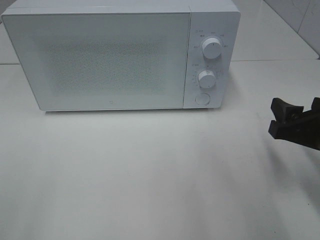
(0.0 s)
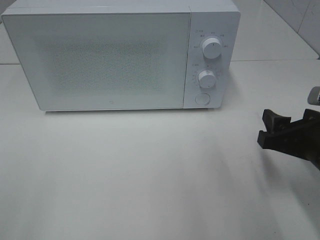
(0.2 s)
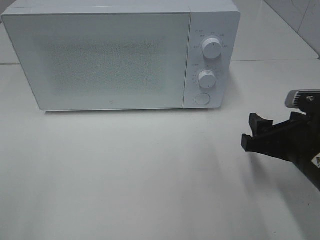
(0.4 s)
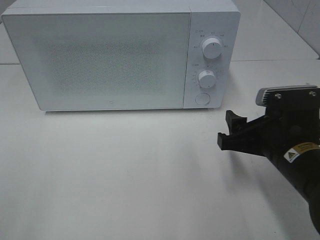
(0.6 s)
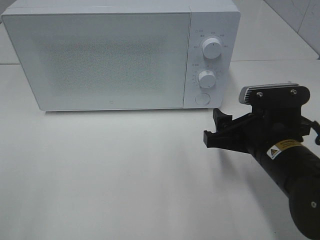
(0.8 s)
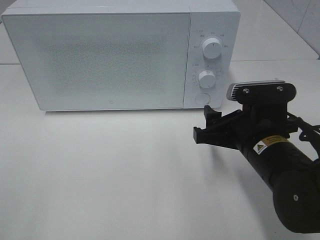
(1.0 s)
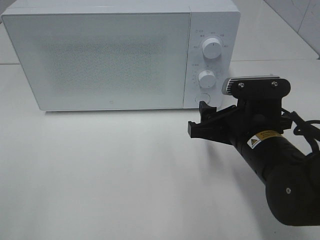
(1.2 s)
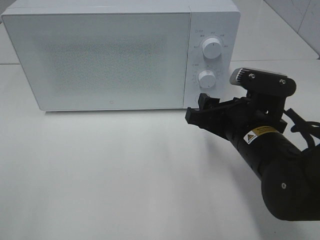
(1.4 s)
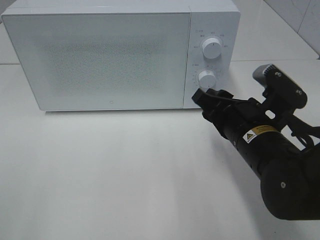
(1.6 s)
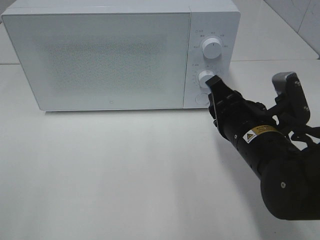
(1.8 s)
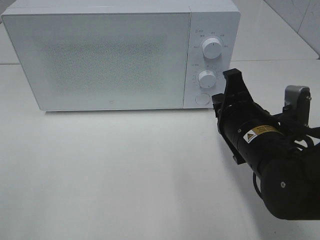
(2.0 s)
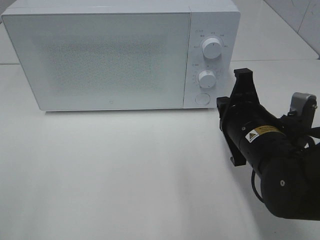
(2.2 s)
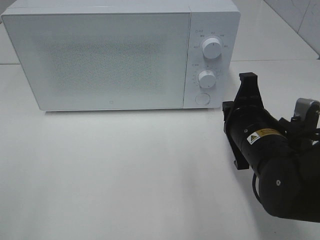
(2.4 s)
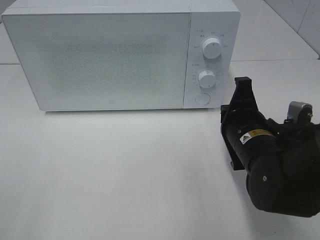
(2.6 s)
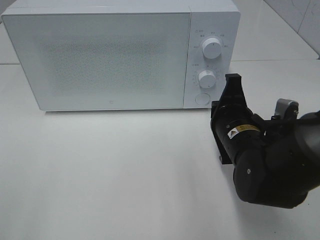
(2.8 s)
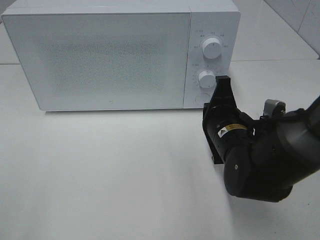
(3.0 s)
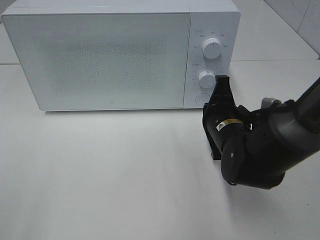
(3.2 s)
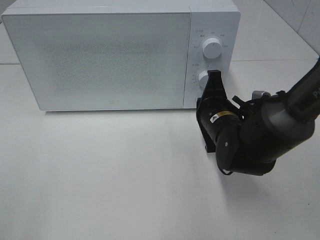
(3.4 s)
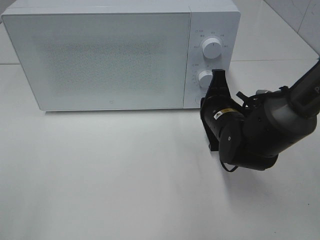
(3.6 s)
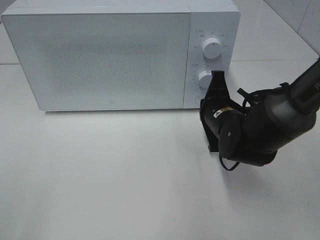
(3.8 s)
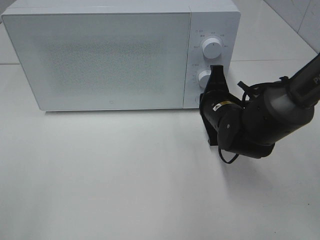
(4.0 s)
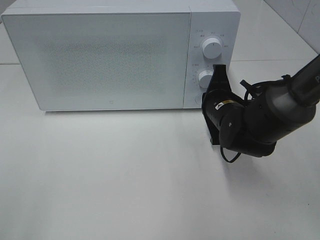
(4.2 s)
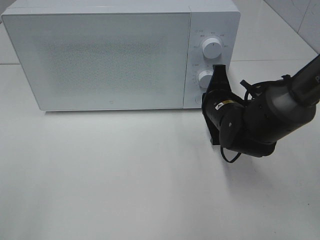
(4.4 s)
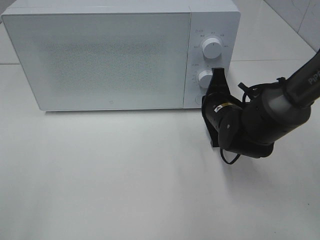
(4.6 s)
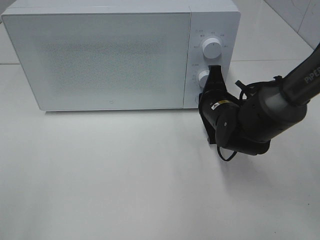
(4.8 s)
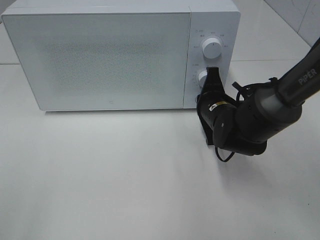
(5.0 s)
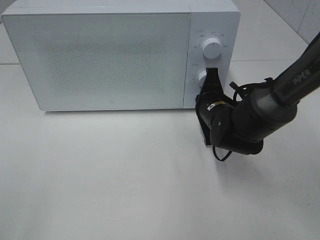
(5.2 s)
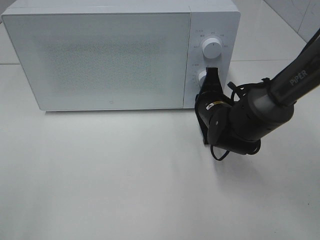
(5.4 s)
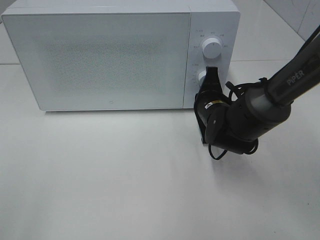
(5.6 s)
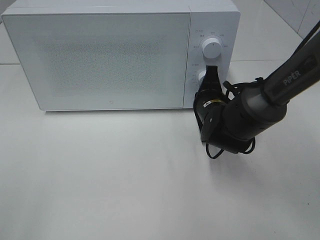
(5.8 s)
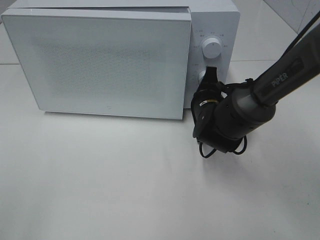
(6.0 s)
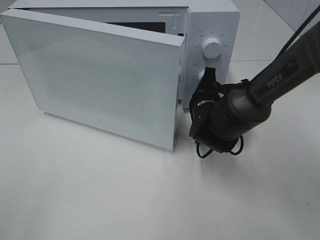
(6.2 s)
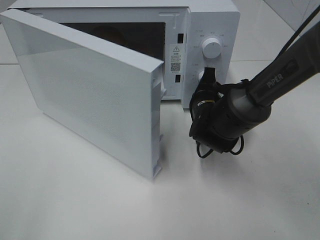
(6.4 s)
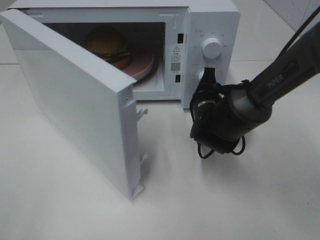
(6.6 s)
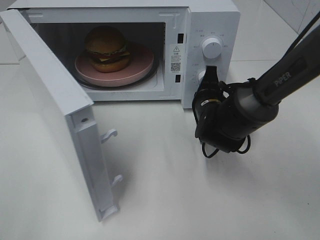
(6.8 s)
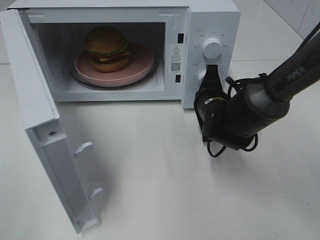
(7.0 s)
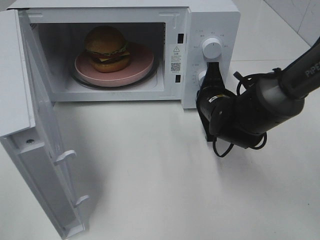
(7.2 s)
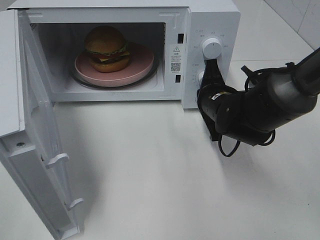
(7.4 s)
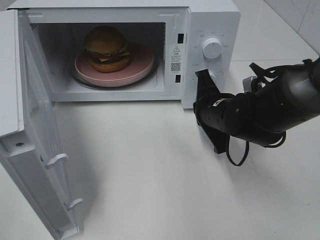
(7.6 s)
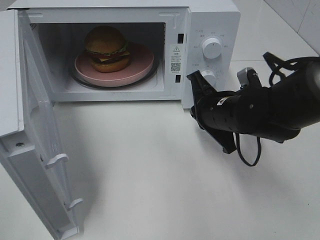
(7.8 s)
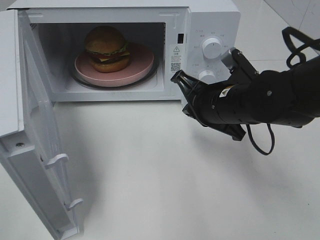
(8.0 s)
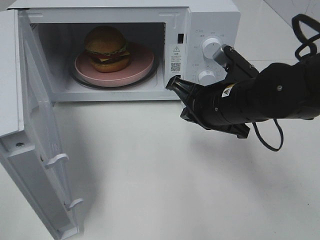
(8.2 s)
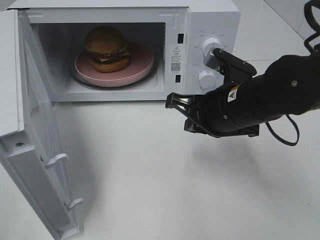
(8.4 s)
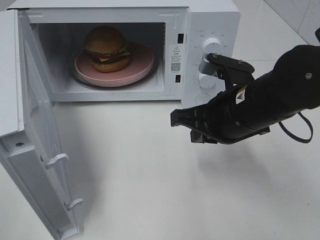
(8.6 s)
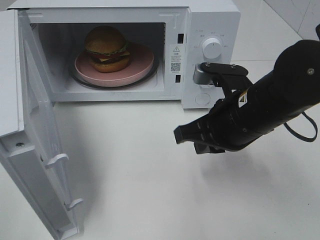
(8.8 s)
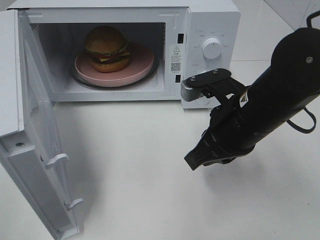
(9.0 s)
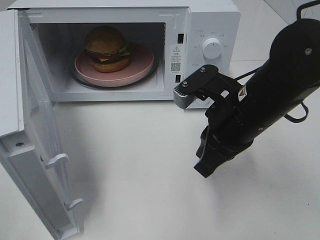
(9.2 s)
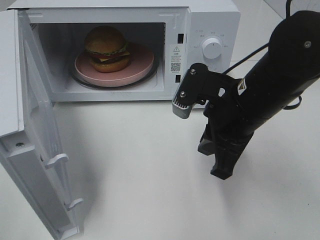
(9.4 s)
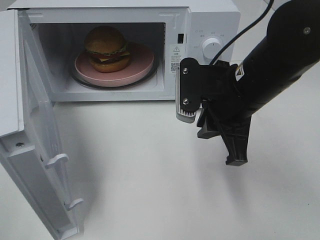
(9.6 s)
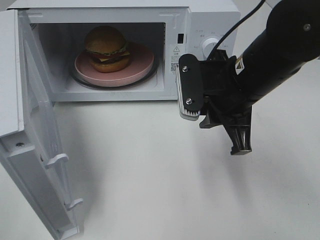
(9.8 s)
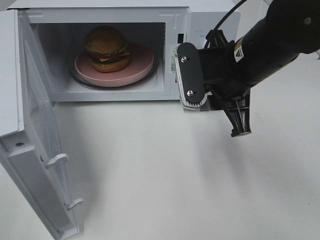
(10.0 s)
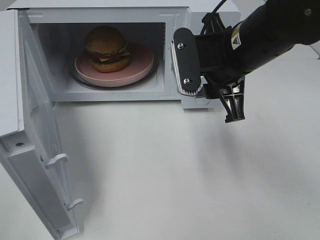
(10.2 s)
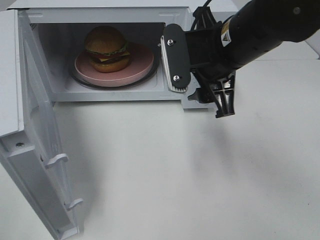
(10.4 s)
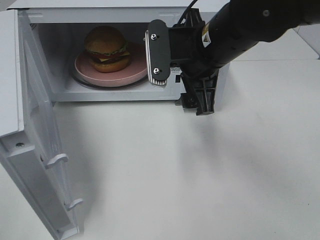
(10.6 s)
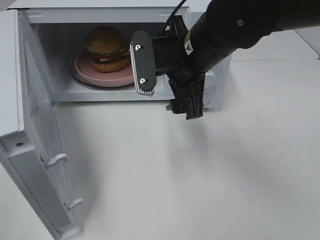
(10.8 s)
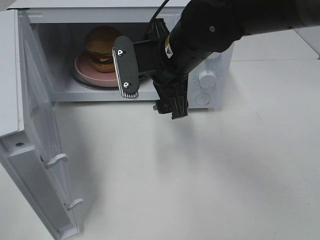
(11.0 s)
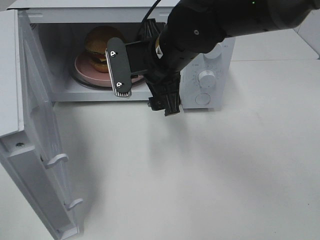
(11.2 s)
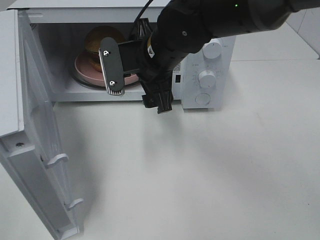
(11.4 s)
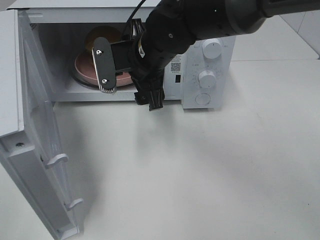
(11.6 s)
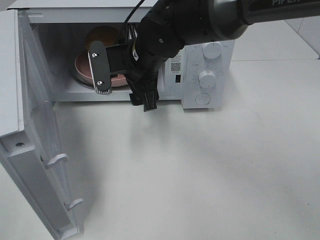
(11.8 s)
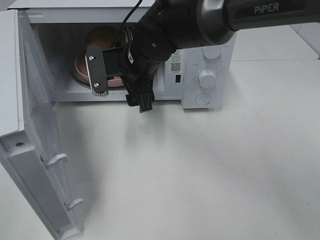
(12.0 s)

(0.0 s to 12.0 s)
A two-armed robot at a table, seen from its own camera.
Task of the whole recording: Heat the burger.
Step, 0.0 s - 7.4 s: Right hand: press the switch.
0.0 s - 1.6 s: The right gripper shifts some 10 cm to the left.
1.6 s - 3.0 s: The right gripper moves about 5 cm, and closes.
3.0 s - 4.4 s: The right gripper goes roughly 5 cm forward.
4.4 s - 6.0 s: The grippers stay close to where they were, moving slightly.
6.0 s - 7.6 s: The right gripper ends up some 5 cm from where it was.
7.6 s - 9.0 s: The right gripper moves backward and upward, about 10 cm.
9.0 s - 10.4 s: The right gripper shifts roughly 10 cm upward and forward, and opens its fingers.
10.4 s - 12.0 s: The right gripper is displaced to the left, forward and downward by roughly 15 cm.

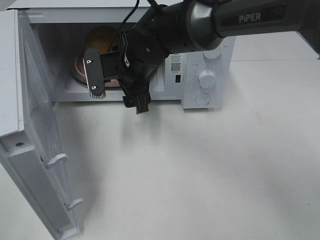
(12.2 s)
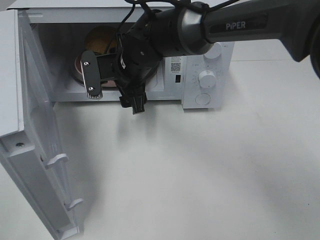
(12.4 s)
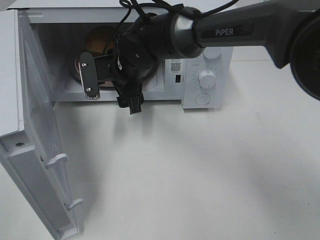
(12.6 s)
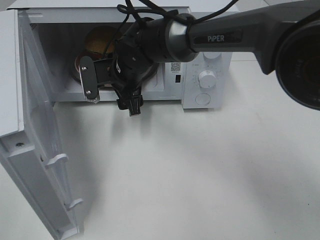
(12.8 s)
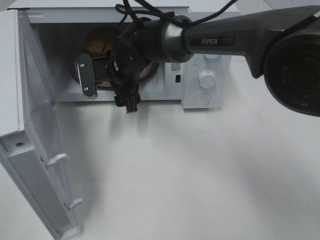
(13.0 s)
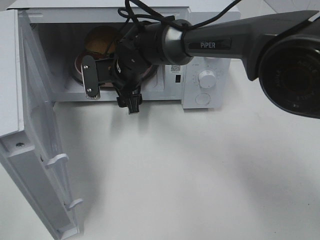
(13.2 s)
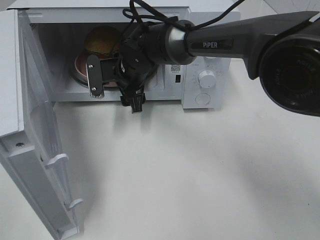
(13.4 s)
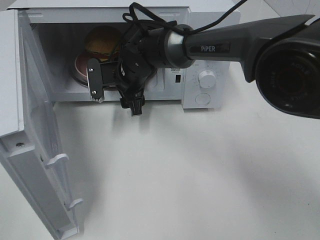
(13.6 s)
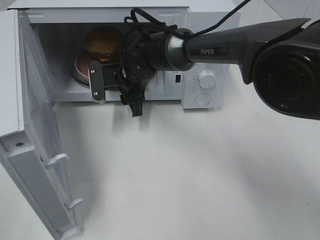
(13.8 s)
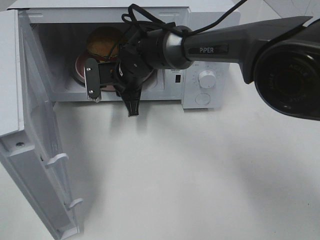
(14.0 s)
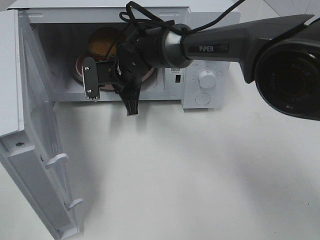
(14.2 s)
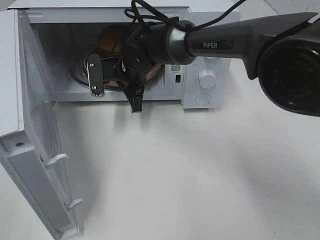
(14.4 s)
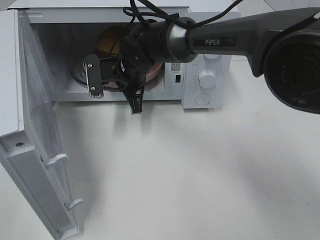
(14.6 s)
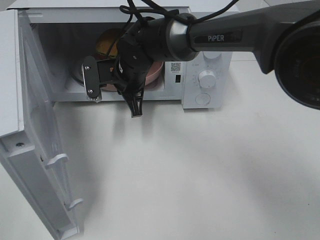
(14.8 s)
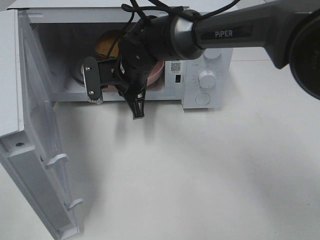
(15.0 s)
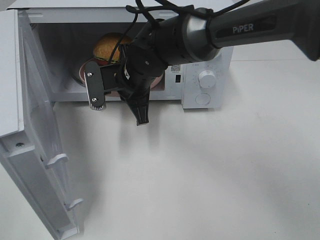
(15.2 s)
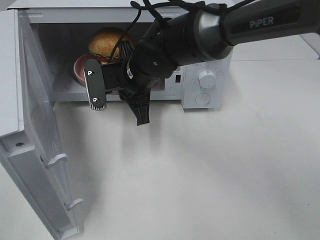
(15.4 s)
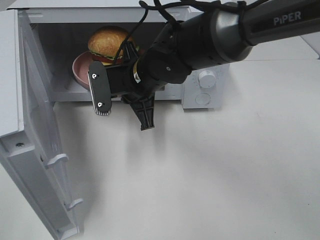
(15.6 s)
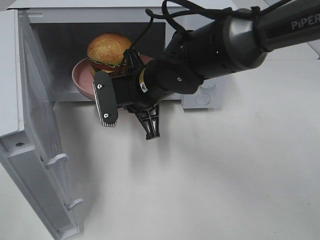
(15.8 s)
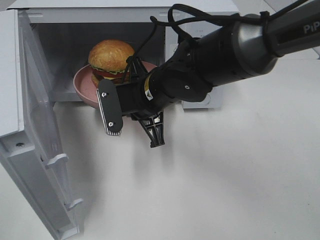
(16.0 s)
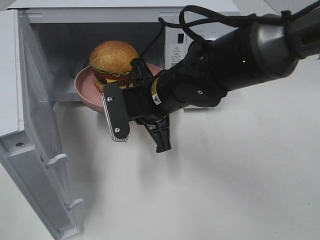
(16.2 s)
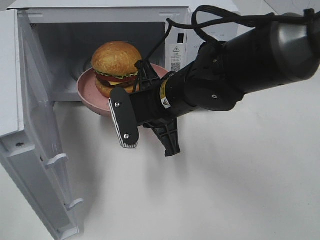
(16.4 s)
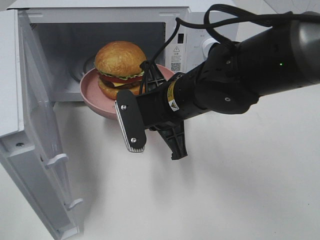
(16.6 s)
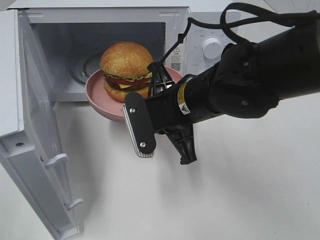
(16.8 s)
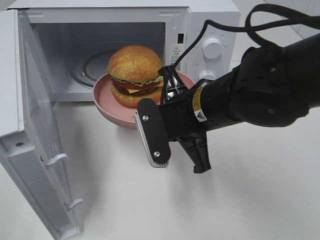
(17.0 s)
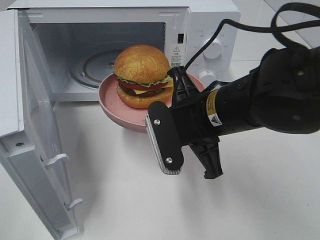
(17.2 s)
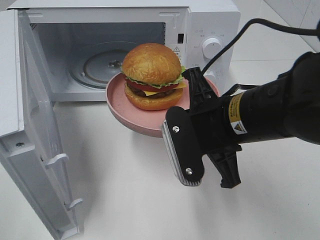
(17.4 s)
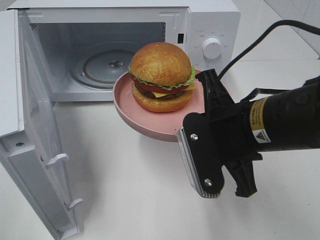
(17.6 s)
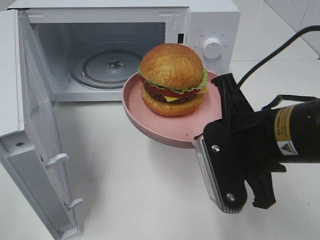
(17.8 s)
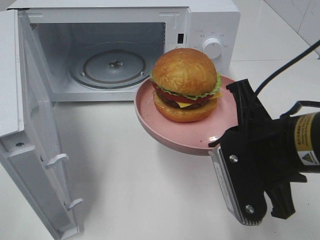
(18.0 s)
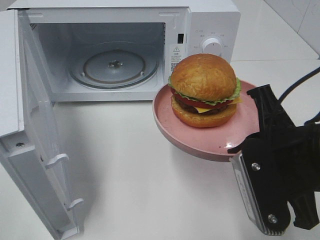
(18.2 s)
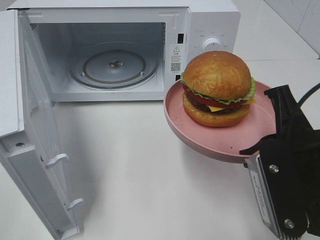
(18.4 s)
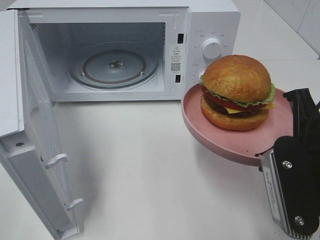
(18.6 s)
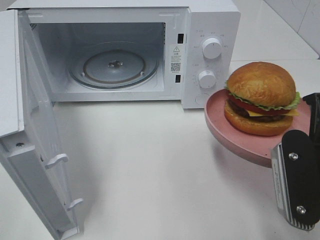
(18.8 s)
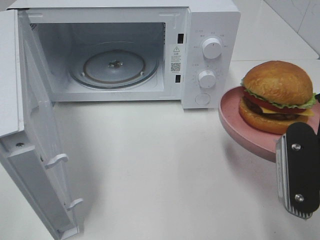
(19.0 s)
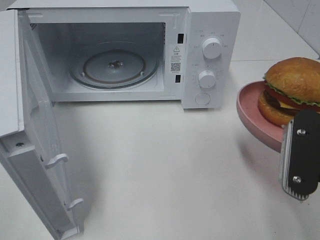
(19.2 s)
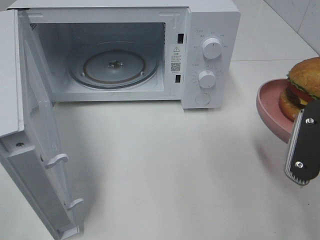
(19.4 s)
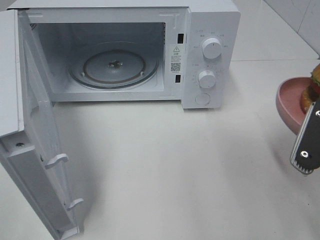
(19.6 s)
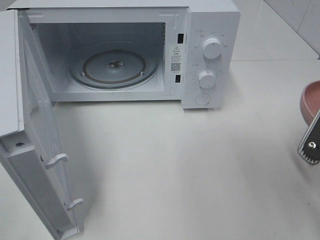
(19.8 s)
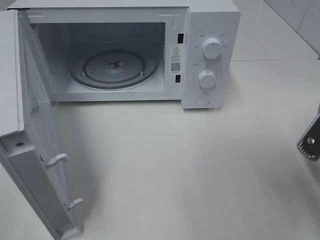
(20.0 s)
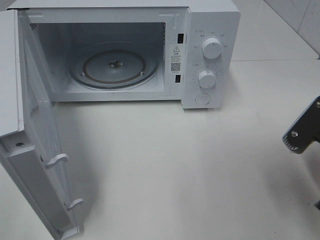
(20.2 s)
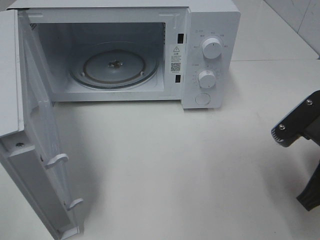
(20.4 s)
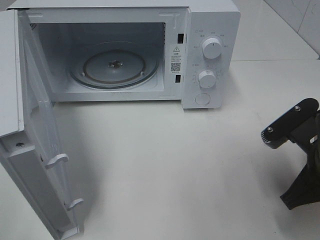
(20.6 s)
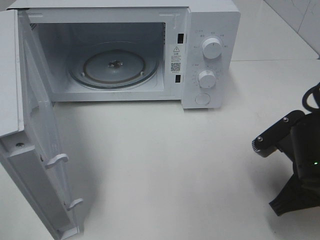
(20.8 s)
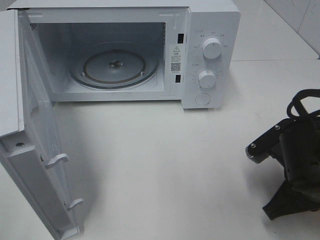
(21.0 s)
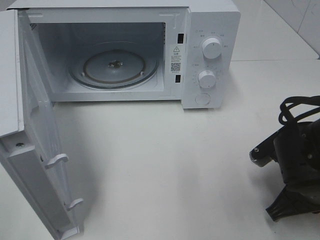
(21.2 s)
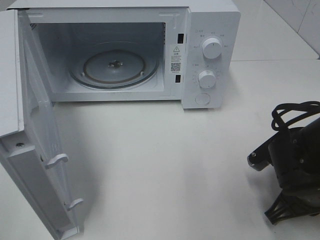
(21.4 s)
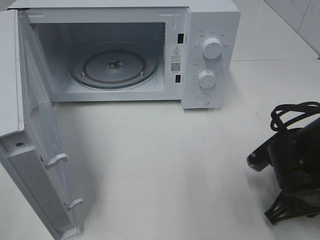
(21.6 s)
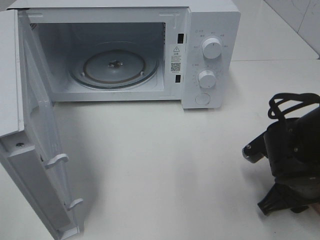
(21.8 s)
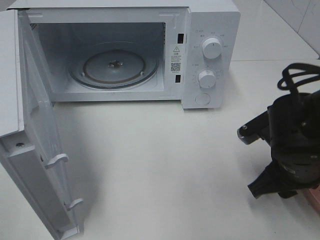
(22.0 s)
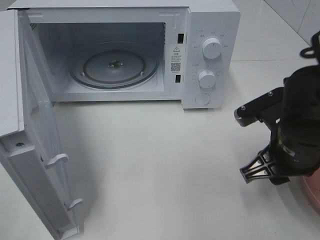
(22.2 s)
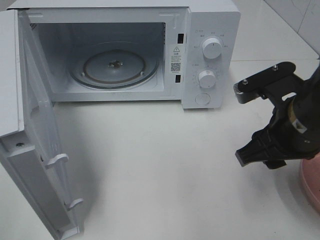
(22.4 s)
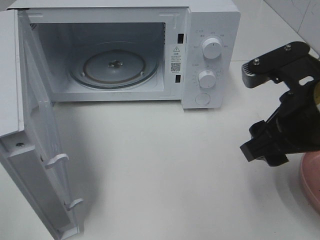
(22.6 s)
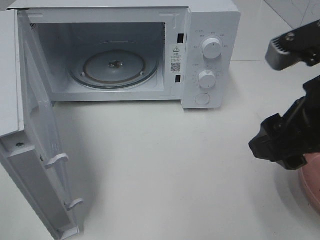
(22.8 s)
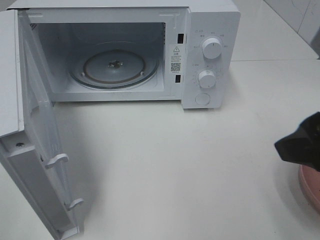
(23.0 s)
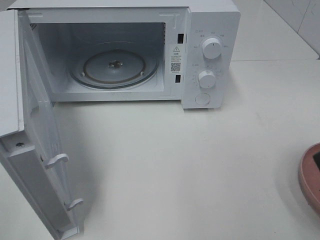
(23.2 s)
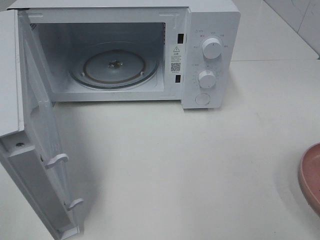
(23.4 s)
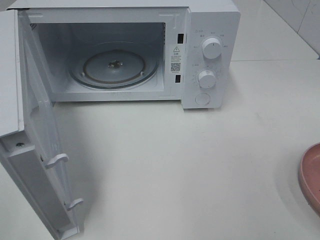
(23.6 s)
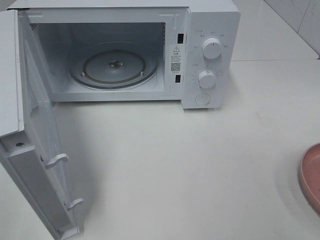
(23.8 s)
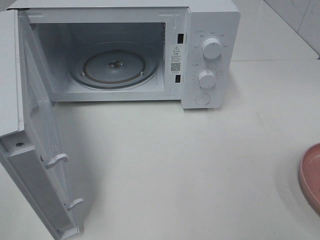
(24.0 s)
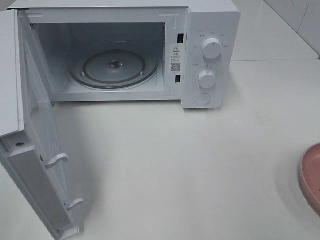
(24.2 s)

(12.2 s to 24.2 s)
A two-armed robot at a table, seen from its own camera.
Task of the whole recording: Heat the burger.
Step, 14.2 s - 21.6 s: Right hand: place the plate on the table.
12.2 s - 13.8 s: The right gripper heads downward, covering some 5 cm.
13.8 s - 15.2 s: The right gripper moves backward, approximately 5 cm, and closes its fingers.
15.2 s - 16.6 s: The right gripper heads backward and to the right, covering approximately 10 cm.
16.6 s - 18.2 s: The right gripper is displaced to the right and backward by about 20 cm.
18.2 s - 19.8 s: The right gripper travels to the right by approximately 5 cm.
19.8 s - 21.2 s: The right gripper is displaced downward and forward by some 15 cm.
21.2 s - 22.6 s: The right gripper heads upward, covering approximately 15 cm, and opens.
22.6 s - 24.2 s: The right gripper travels backward and to the right by about 20 cm.
